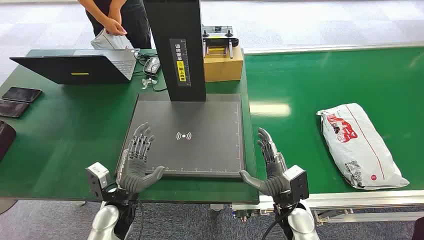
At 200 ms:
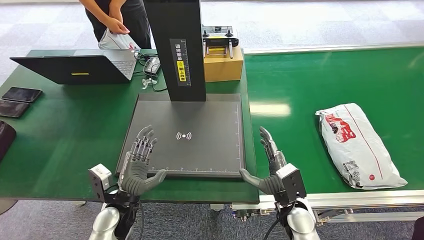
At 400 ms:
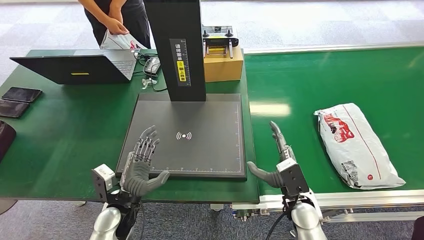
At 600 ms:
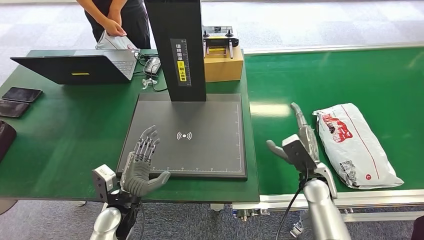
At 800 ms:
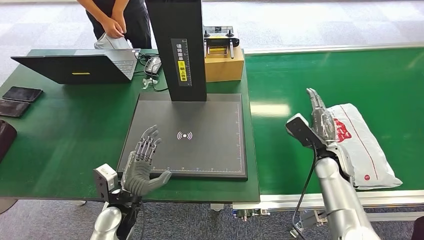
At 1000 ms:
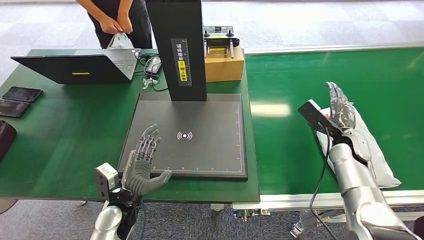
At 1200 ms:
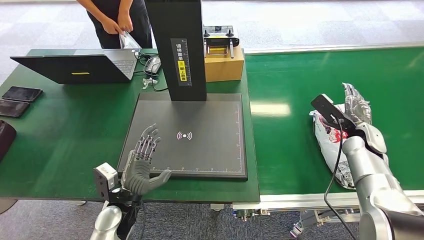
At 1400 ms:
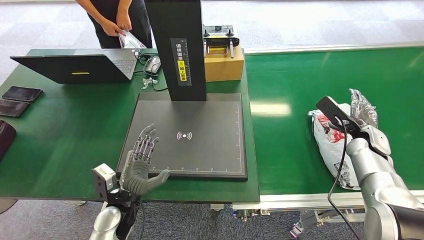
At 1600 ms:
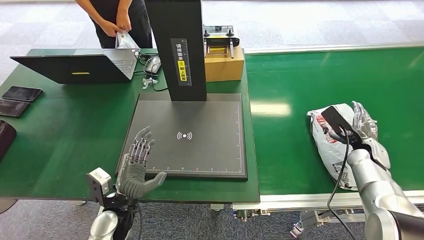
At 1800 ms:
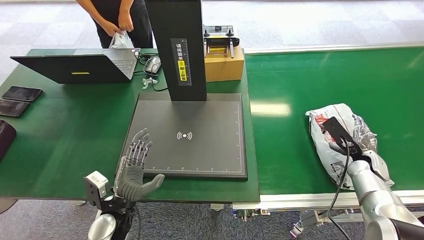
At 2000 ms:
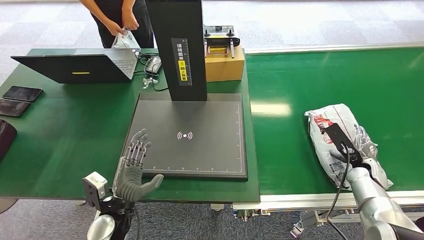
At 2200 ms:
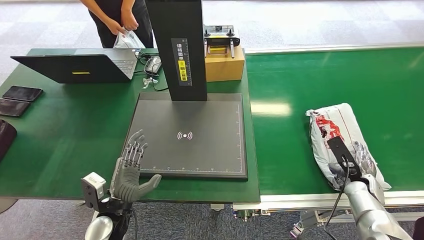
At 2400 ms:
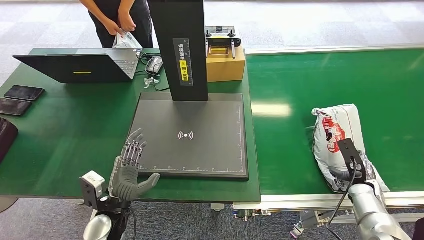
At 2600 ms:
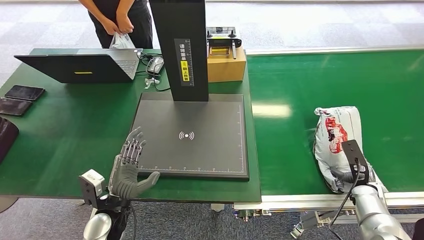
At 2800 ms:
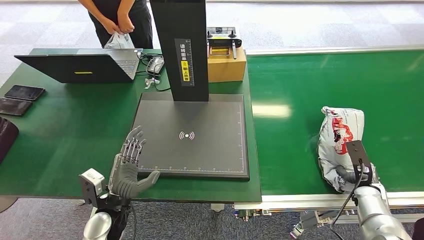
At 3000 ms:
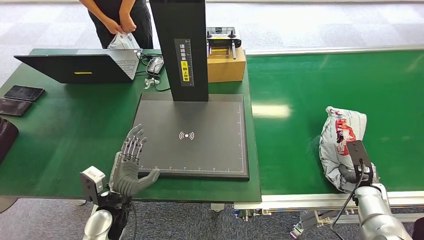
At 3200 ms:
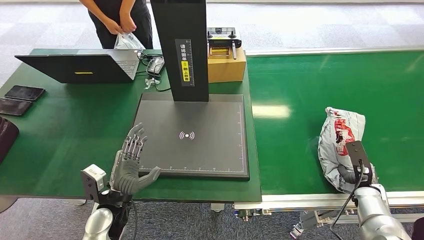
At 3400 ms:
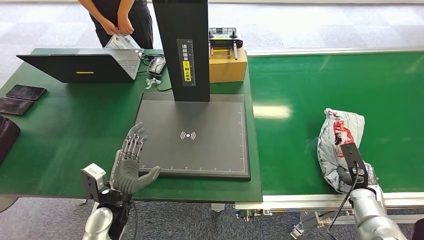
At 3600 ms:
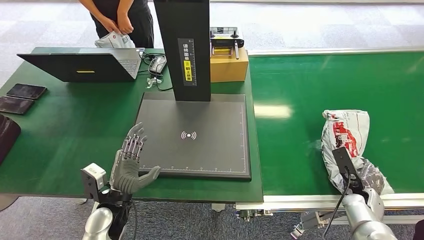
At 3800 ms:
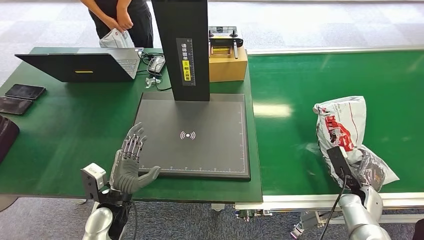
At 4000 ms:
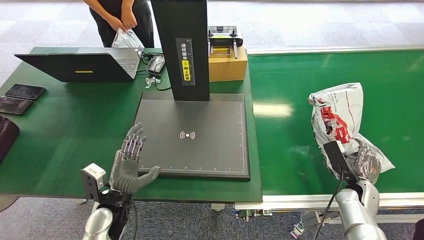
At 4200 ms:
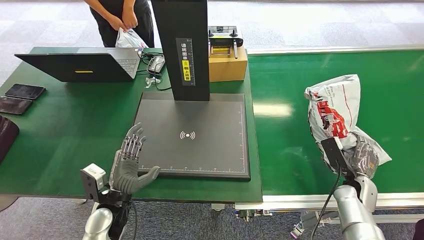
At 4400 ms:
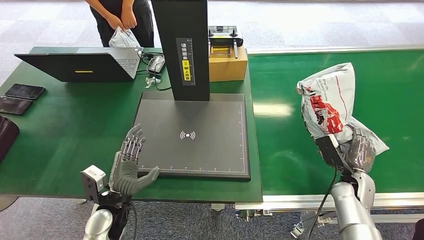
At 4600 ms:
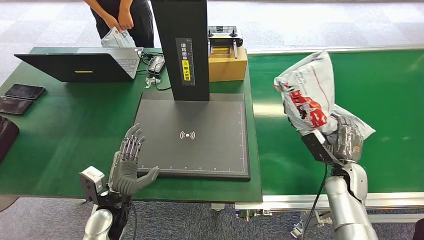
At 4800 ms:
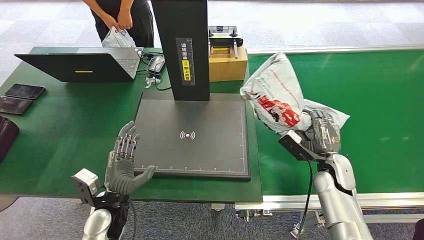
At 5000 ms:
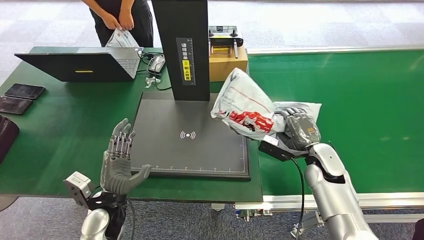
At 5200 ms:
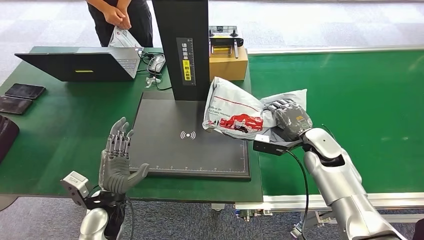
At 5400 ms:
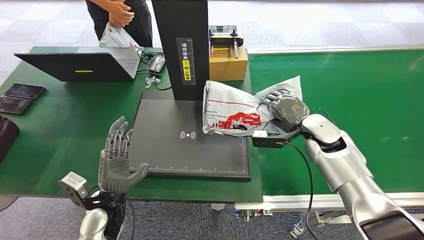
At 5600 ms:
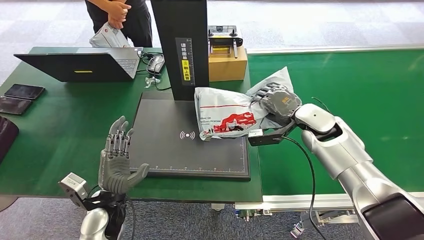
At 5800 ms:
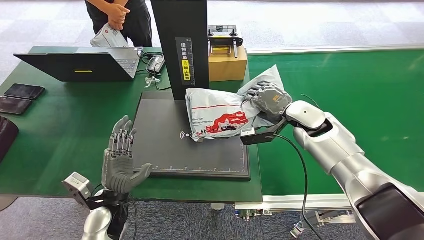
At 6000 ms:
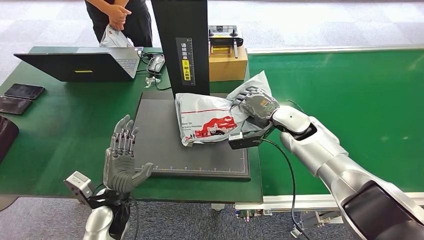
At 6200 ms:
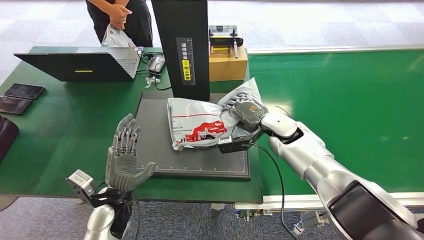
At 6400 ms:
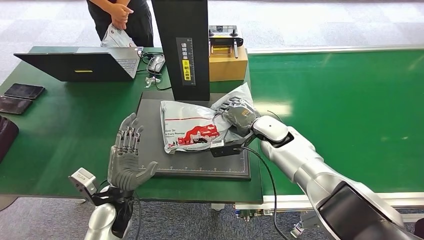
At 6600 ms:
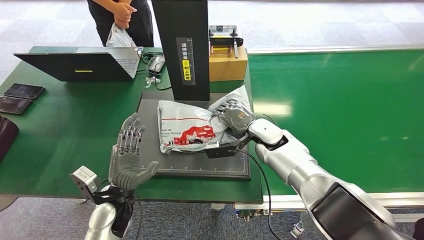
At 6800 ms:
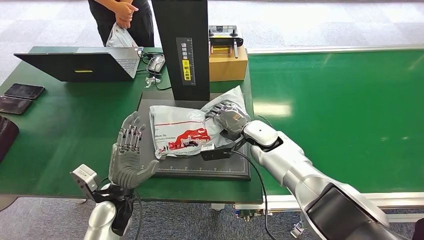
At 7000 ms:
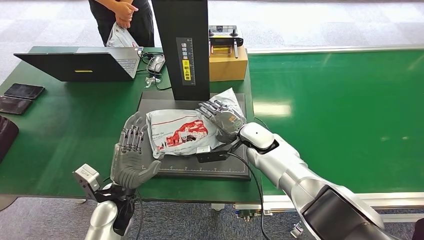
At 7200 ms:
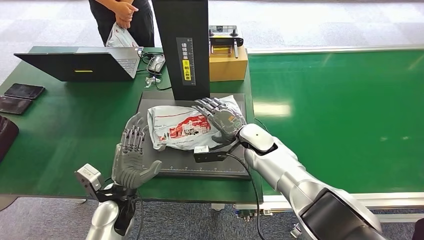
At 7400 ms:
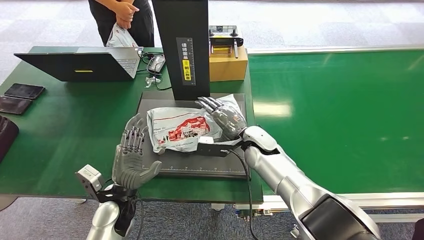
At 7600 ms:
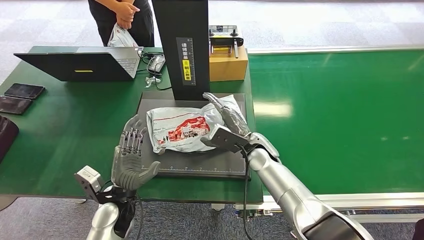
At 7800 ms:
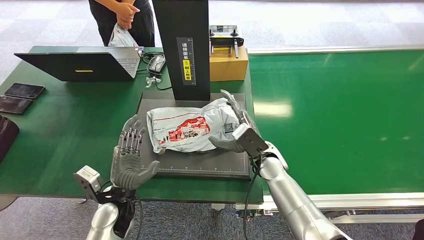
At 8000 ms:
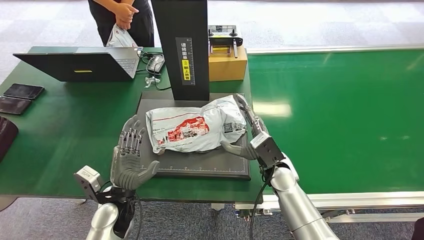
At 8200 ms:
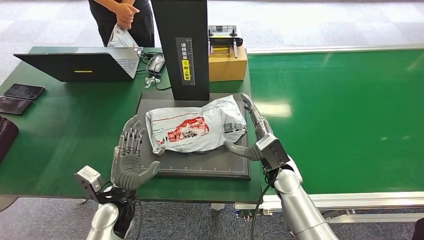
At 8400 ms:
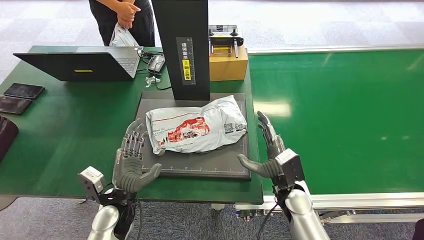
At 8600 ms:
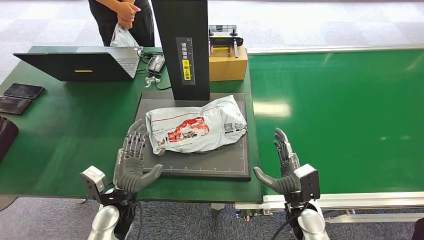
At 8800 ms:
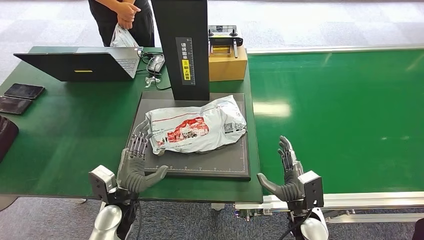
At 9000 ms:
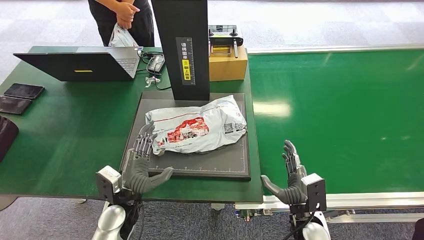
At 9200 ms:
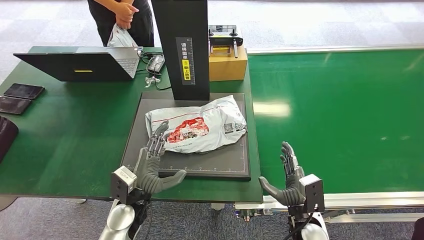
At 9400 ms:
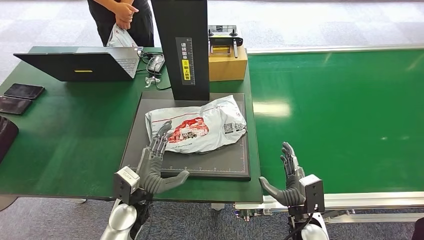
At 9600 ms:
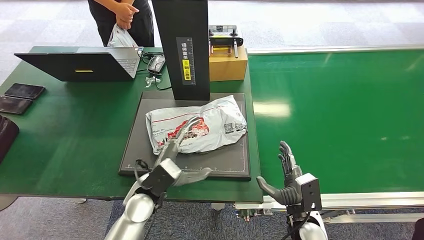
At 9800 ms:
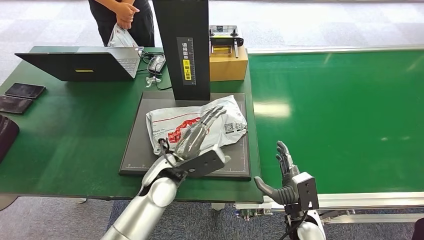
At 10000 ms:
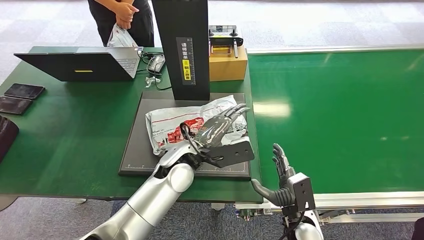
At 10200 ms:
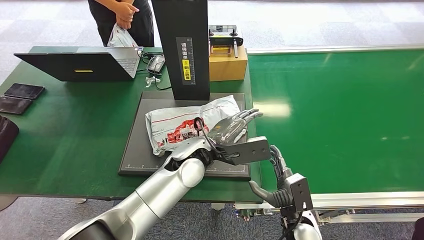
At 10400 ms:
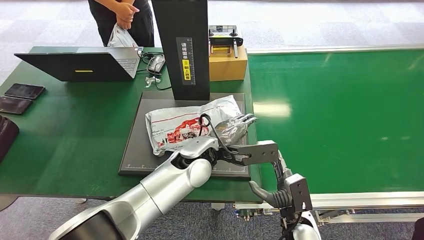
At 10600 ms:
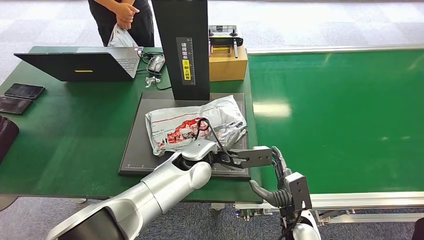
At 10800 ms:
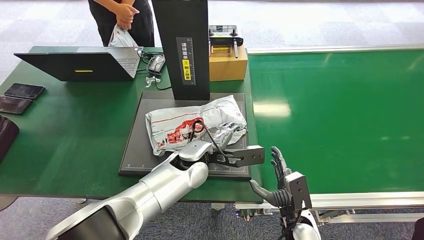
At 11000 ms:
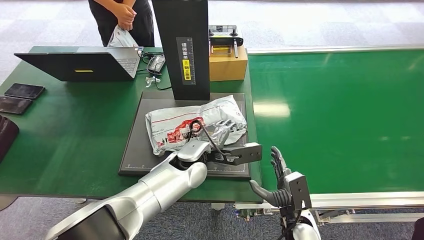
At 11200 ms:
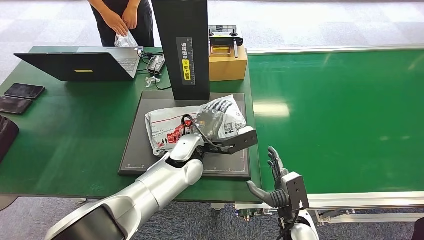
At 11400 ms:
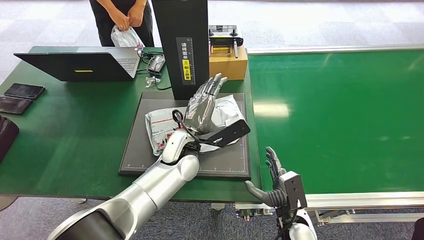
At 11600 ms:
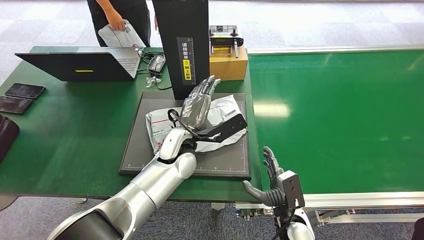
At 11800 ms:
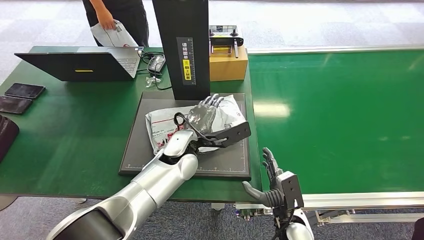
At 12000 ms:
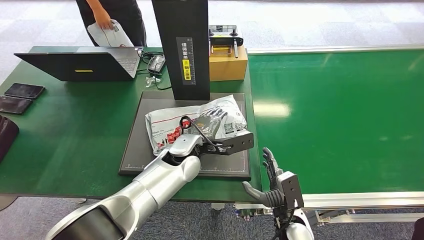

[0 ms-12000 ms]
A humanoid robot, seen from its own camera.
Step, 0 ms to 4000 ms: Pick up the package from the conveyor belt.
Step, 4200 ms to 8400 ms: Place the package onto the inbound machine.
1600 ms to 3000 ms: The right hand is displaced downward and backward by about 15 cm.
3000 ms to 4400 ms: The right hand goes about 5 cm to the left.
7600 ms to 9000 ms: The right hand shifts approximately 25 cm backward, to the right and downward.
9000 ms to 10400 ms: The left hand is displaced to the right, upward and forward by some 25 cm.

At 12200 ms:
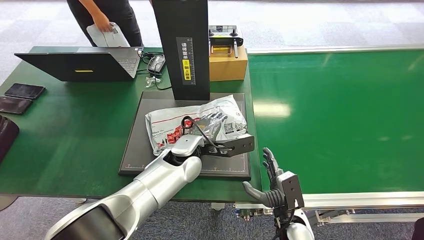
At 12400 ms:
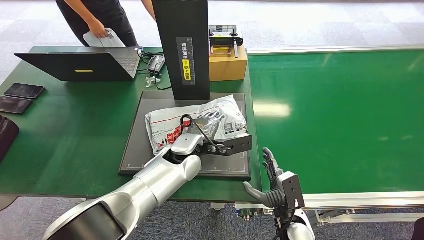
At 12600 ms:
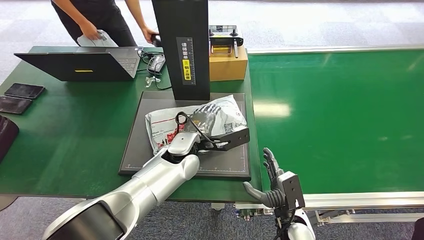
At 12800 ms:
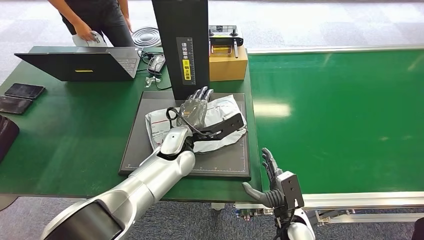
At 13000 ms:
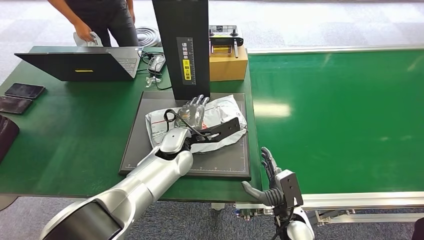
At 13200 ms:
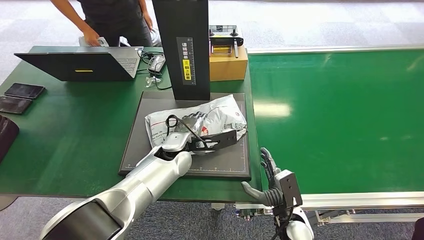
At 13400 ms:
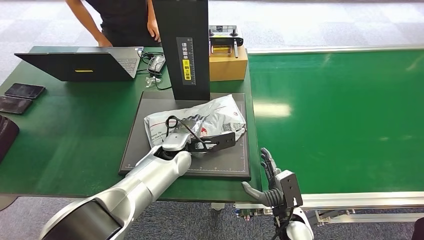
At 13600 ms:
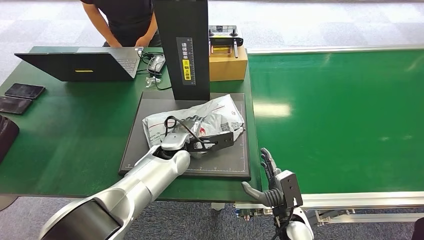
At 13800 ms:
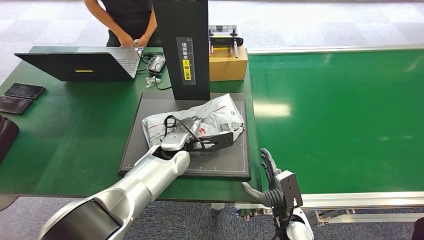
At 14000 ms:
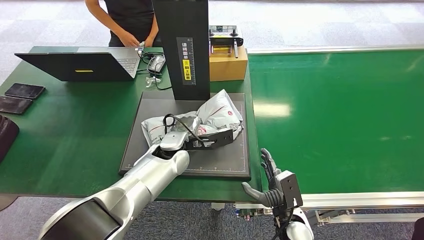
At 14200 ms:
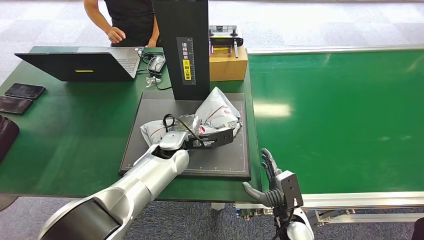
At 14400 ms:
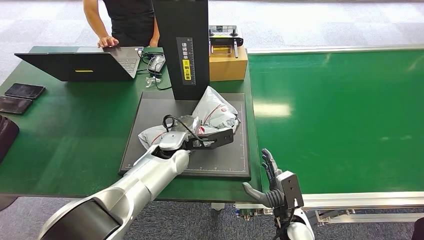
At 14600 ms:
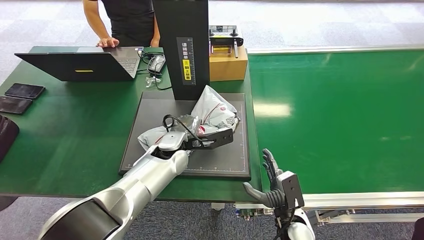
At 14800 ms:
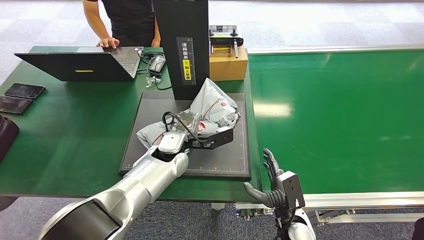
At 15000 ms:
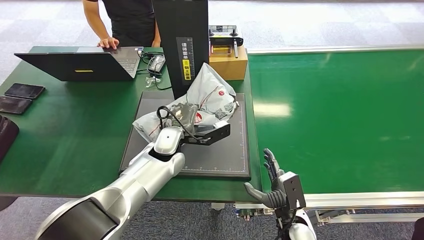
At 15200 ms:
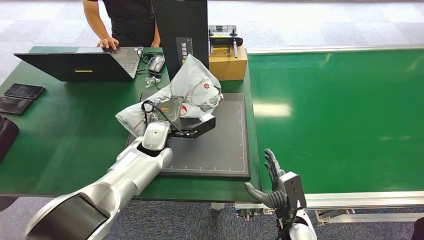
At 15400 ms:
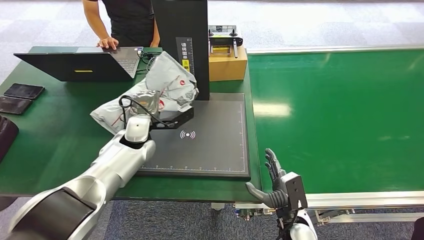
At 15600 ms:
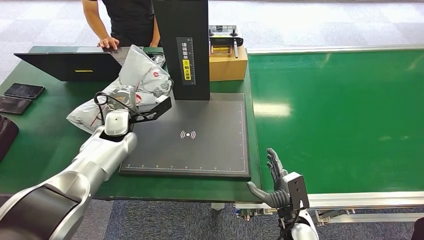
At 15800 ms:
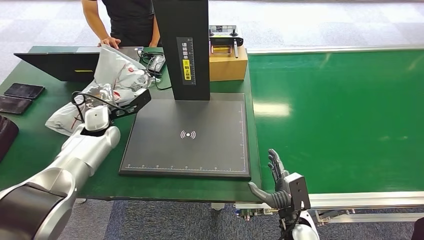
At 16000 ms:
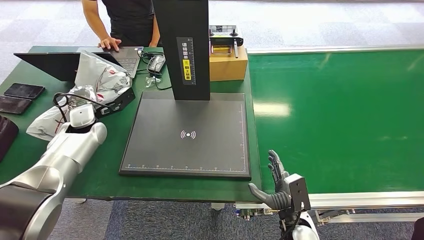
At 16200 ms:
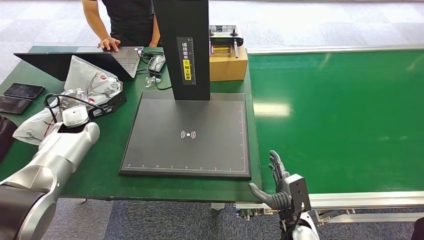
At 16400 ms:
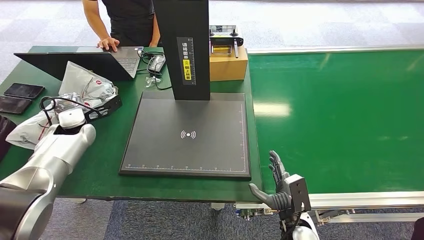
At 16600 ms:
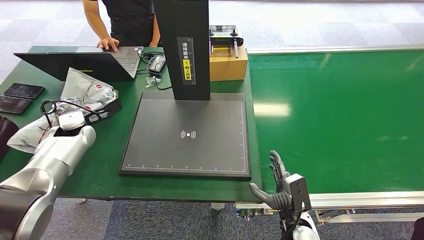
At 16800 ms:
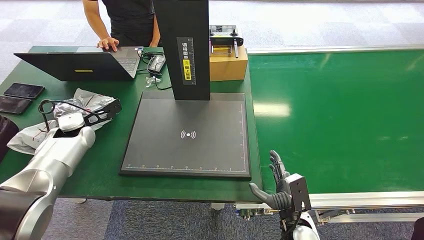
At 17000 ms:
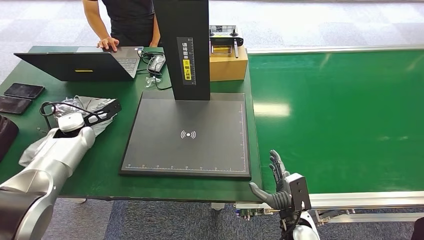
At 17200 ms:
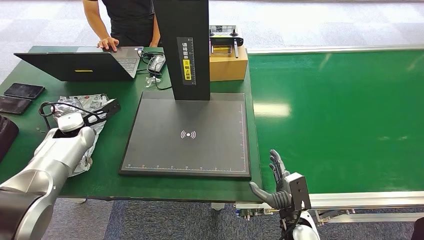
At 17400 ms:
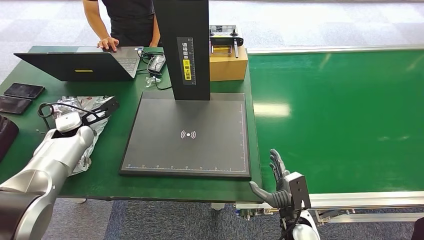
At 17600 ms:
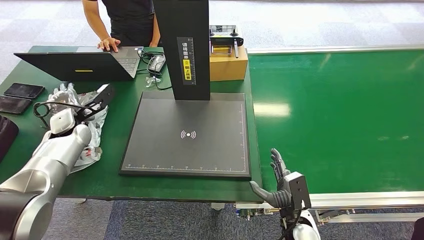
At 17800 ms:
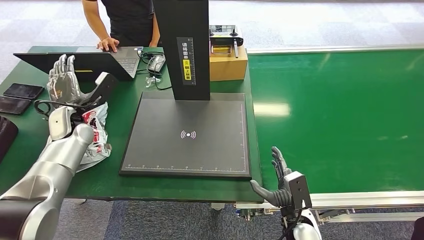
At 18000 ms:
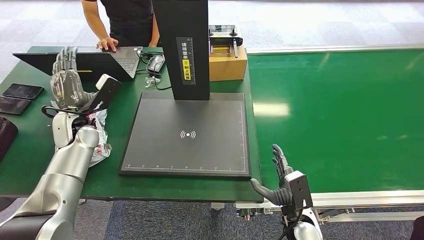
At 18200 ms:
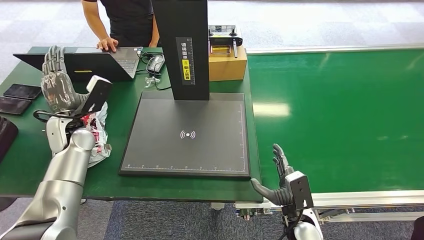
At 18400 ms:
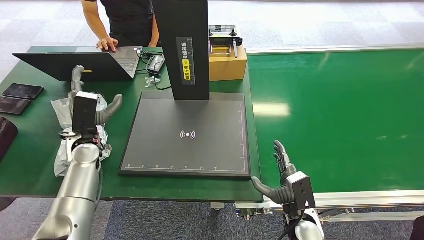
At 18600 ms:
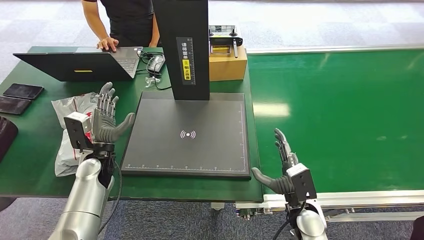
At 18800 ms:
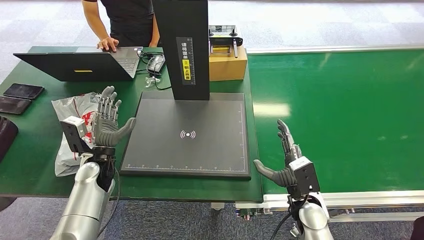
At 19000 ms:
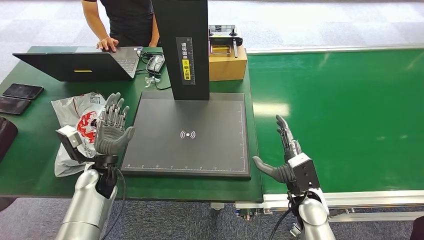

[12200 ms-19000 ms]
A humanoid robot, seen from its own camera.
Step, 12200 ms to 15200 ms: Pick up the package from the inbound machine.
16200 ms to 17600 ms: There are only small adjustments of the hands.
17600 ms to 19000 ms: The right hand is displaced upward by approximately 5 cm. Meanwhile the left hand travels backward, to the right and downward by some 15 cm.
